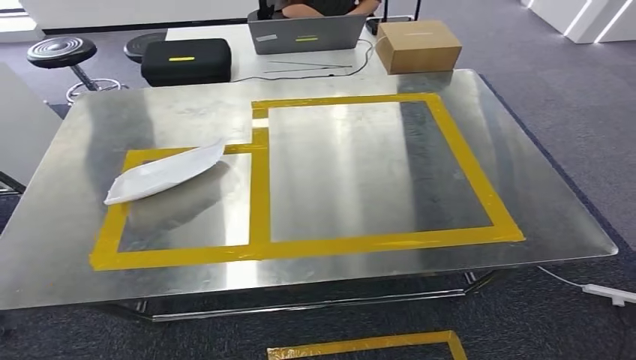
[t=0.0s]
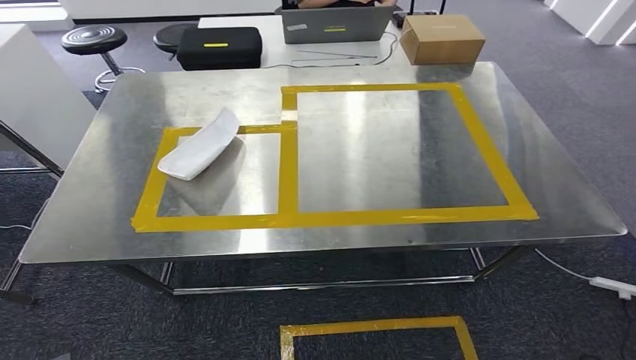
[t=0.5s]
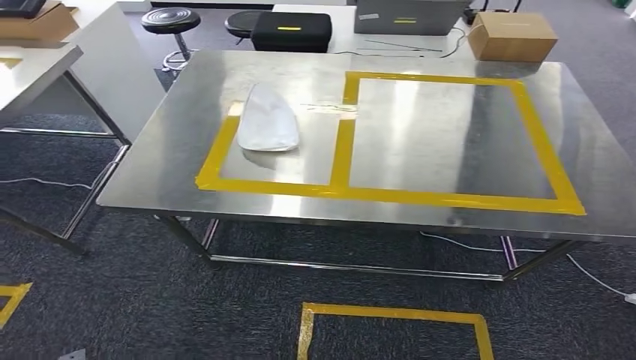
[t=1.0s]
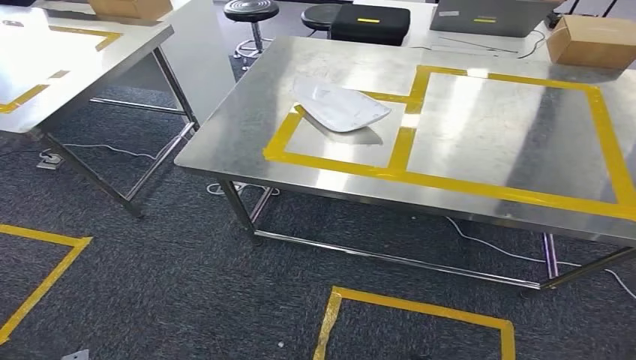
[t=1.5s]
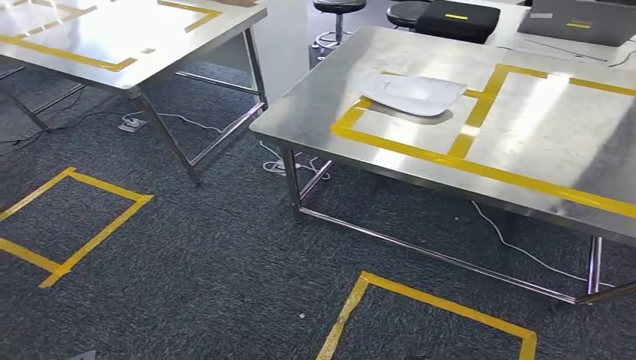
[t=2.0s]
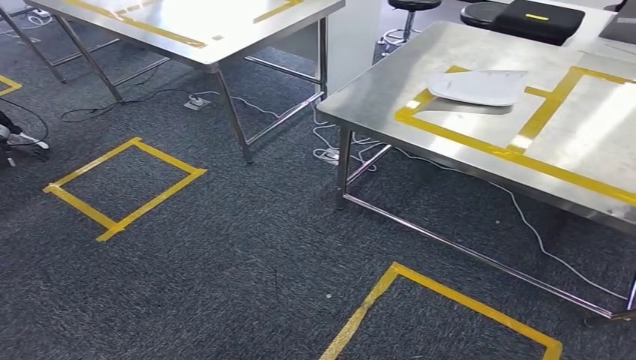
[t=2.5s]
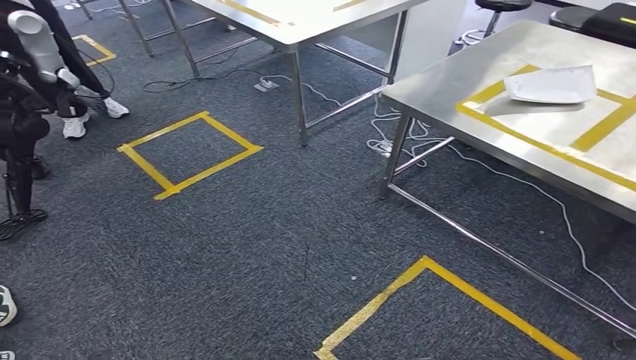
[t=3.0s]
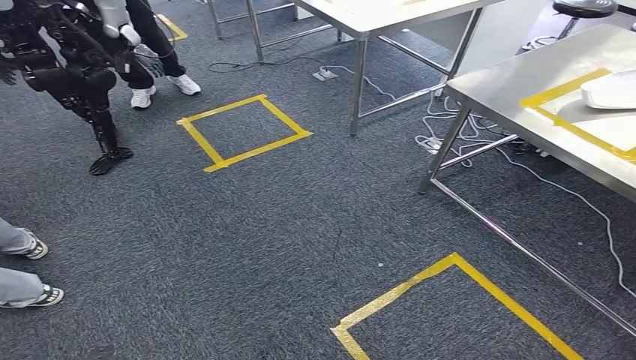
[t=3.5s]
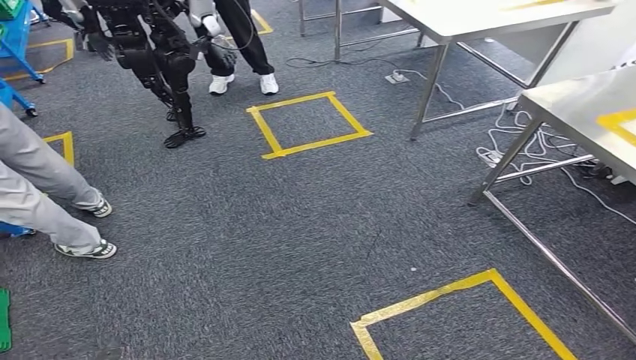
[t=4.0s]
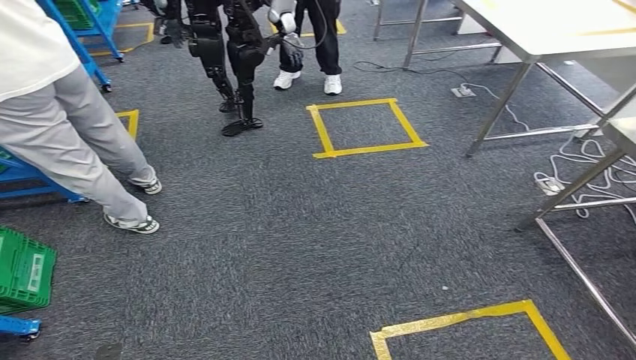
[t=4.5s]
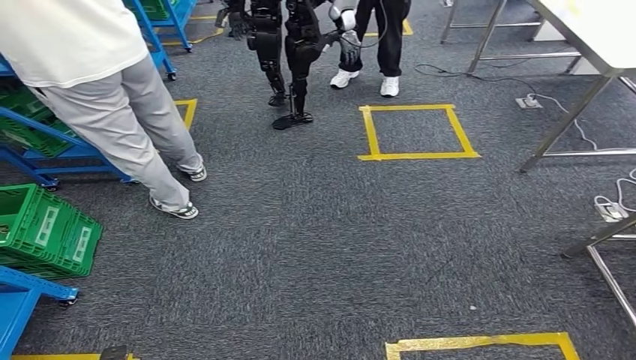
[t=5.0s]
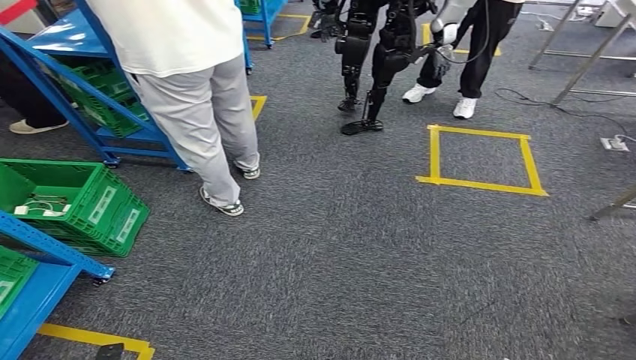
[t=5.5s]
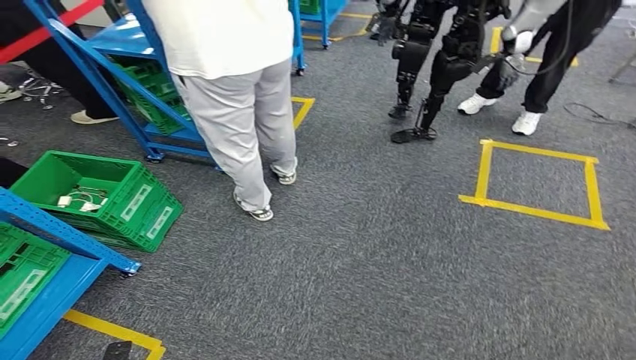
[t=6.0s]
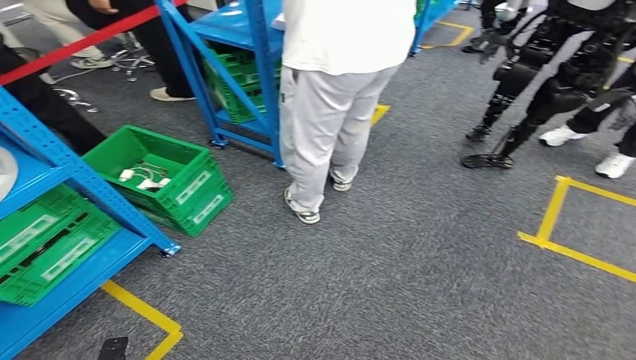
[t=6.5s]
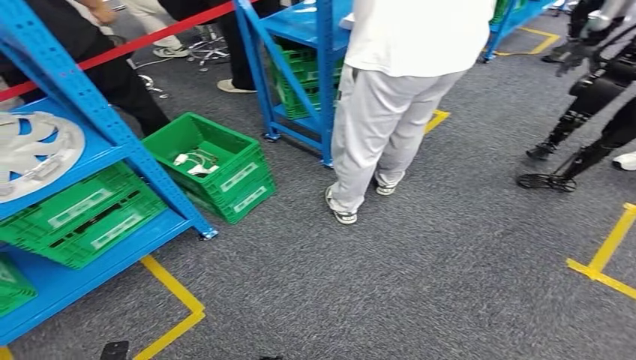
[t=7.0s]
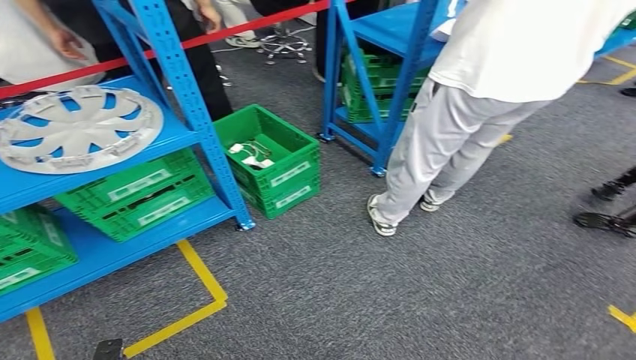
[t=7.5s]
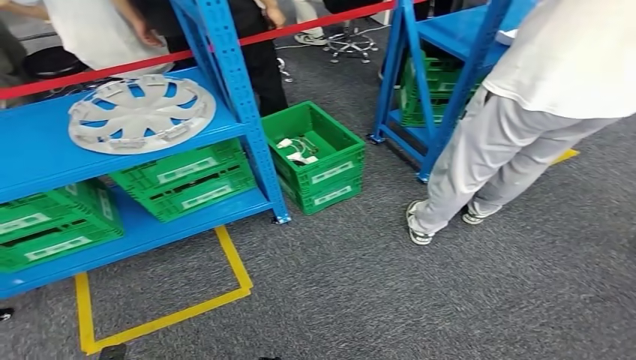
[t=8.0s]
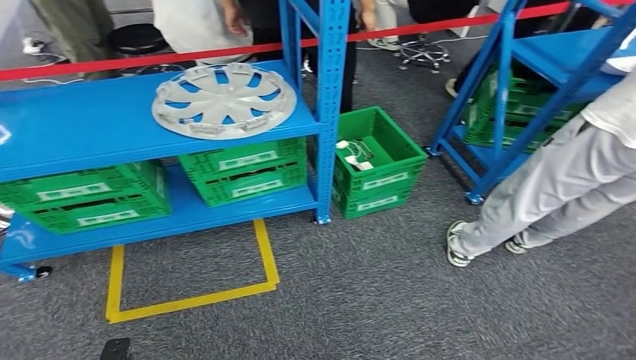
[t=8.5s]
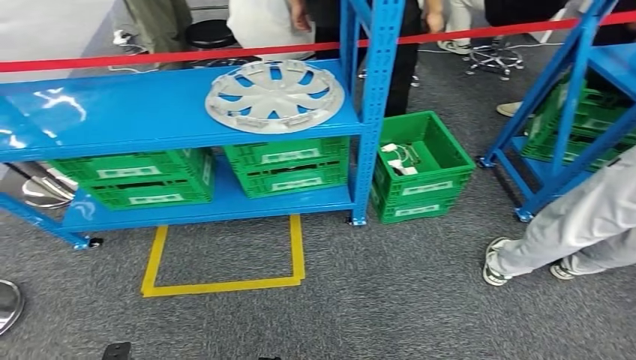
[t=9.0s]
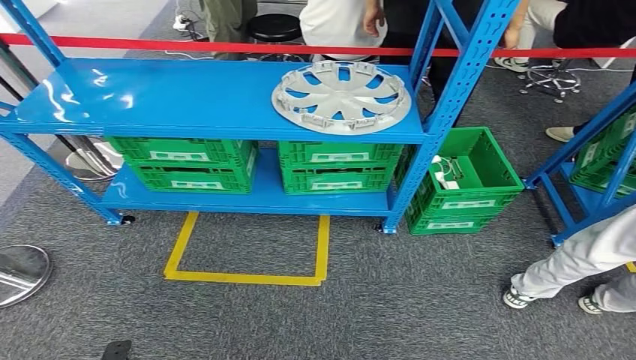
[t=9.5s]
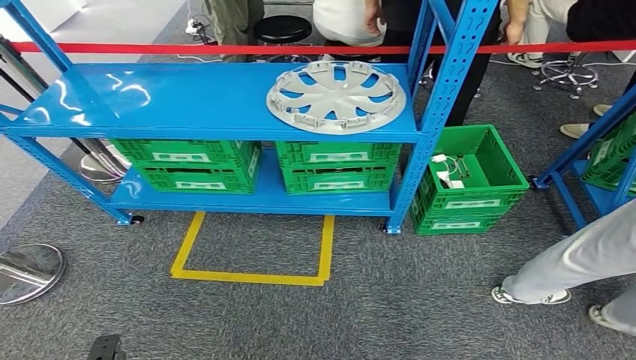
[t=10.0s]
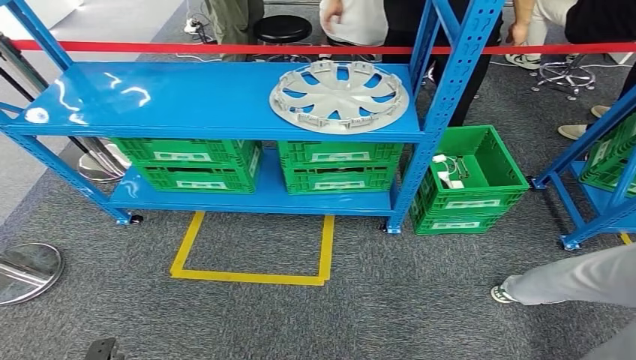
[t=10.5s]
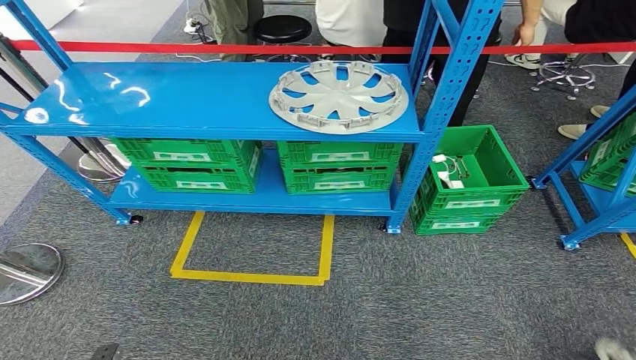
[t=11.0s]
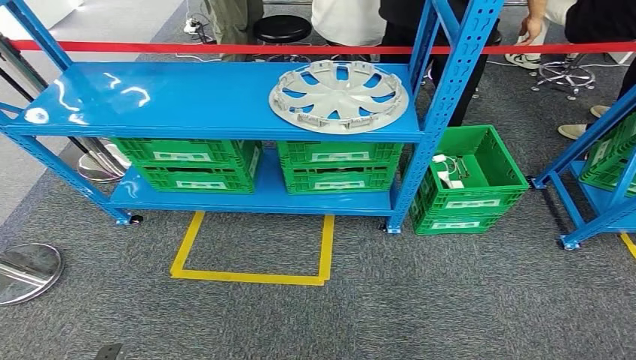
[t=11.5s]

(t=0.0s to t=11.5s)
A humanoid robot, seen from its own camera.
Step, t=2.5s - t=11.5s: Return to the initial position at the workbench.
